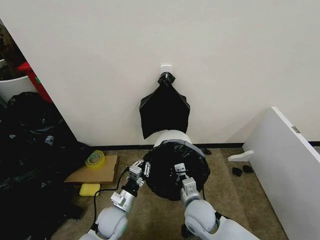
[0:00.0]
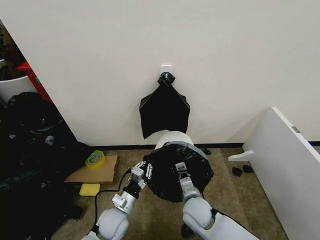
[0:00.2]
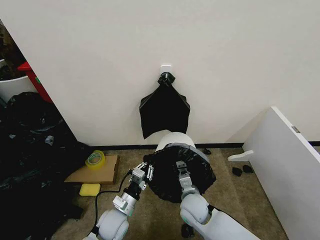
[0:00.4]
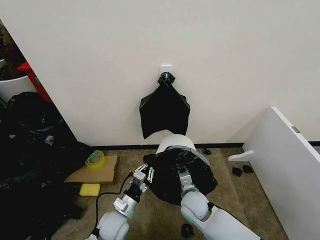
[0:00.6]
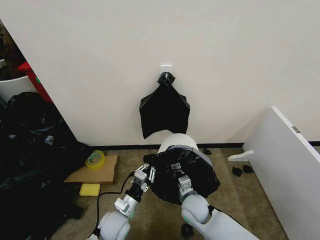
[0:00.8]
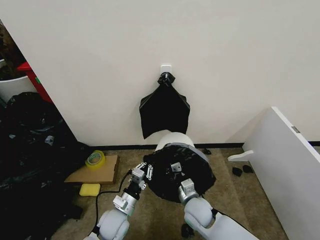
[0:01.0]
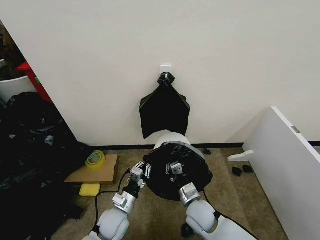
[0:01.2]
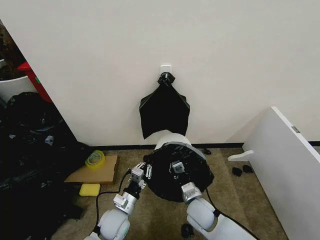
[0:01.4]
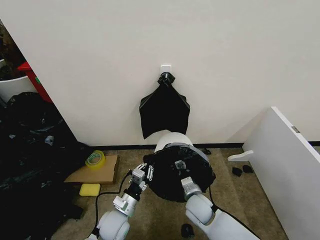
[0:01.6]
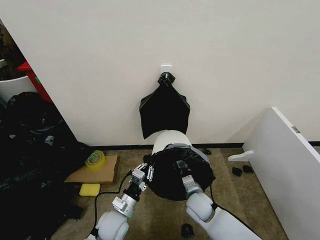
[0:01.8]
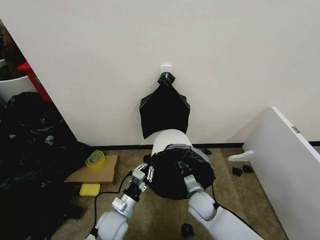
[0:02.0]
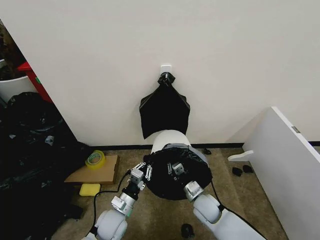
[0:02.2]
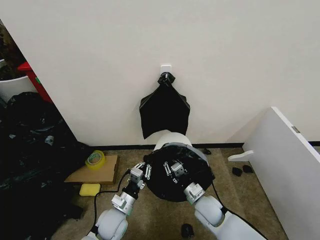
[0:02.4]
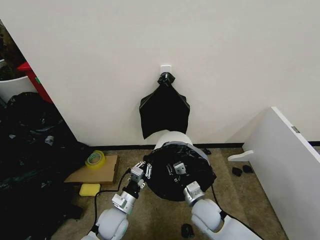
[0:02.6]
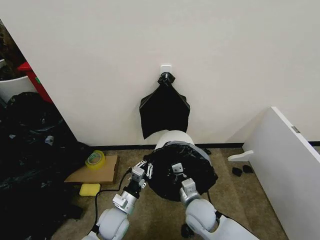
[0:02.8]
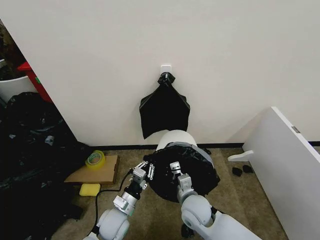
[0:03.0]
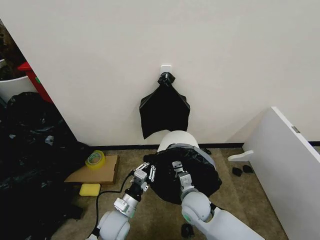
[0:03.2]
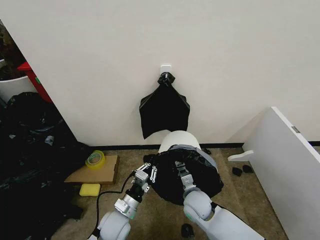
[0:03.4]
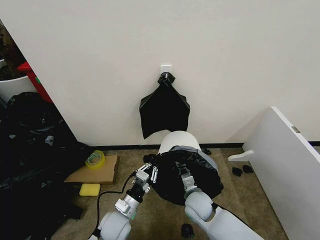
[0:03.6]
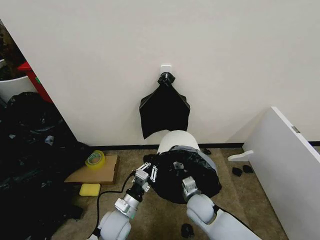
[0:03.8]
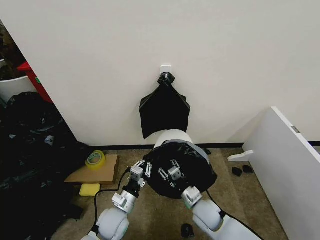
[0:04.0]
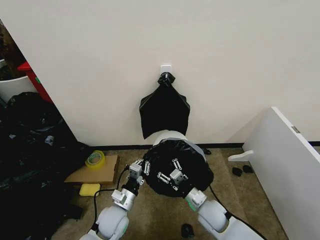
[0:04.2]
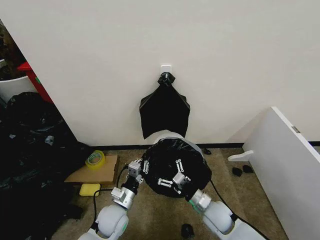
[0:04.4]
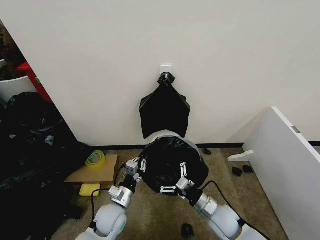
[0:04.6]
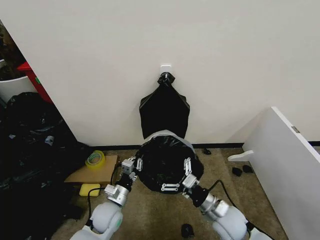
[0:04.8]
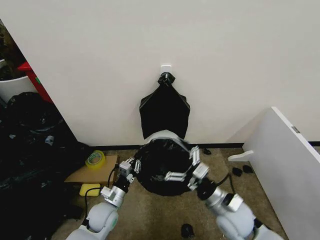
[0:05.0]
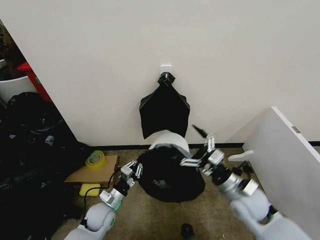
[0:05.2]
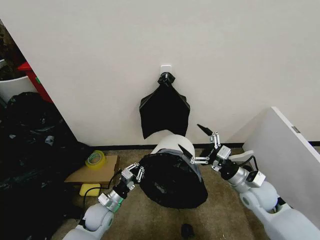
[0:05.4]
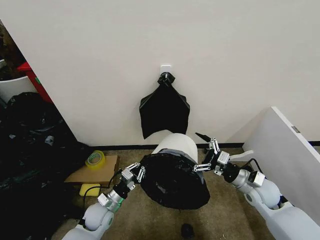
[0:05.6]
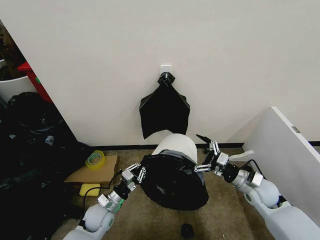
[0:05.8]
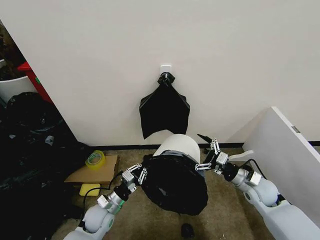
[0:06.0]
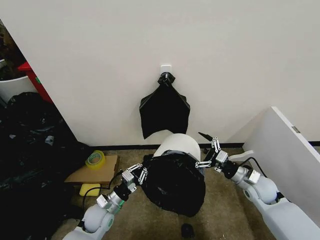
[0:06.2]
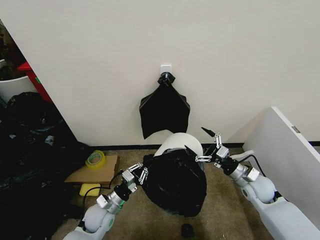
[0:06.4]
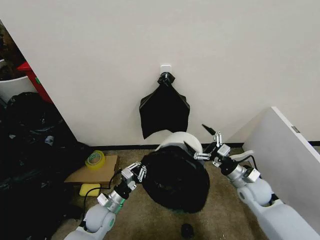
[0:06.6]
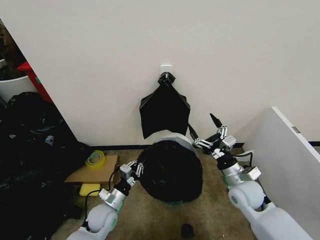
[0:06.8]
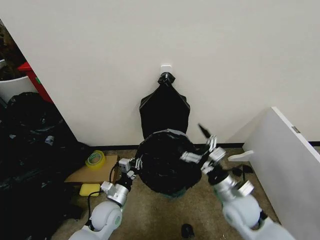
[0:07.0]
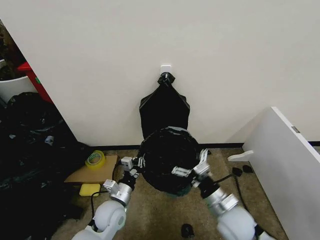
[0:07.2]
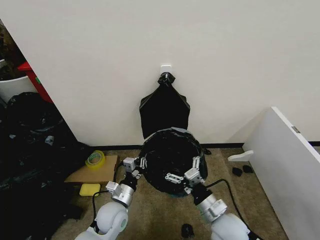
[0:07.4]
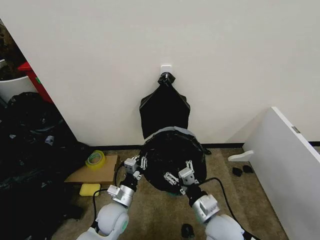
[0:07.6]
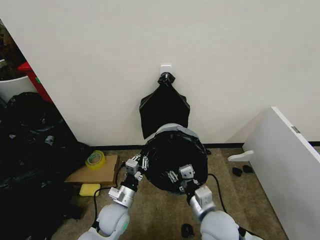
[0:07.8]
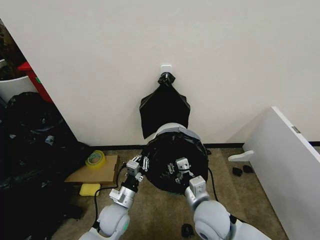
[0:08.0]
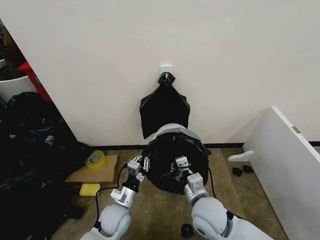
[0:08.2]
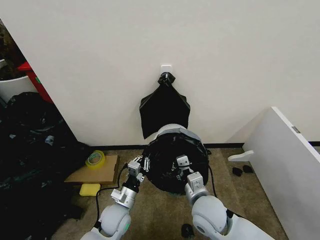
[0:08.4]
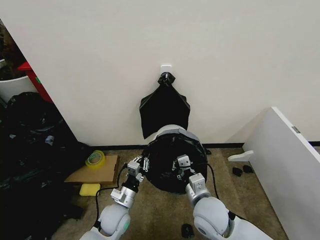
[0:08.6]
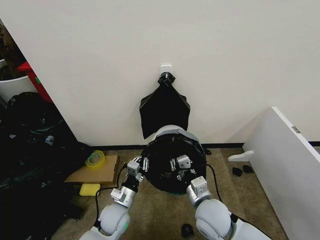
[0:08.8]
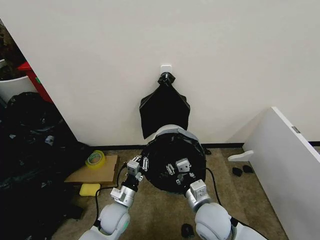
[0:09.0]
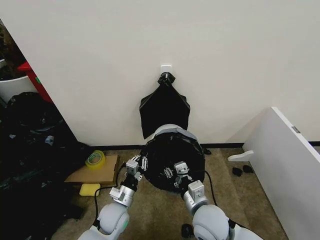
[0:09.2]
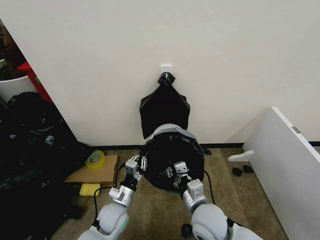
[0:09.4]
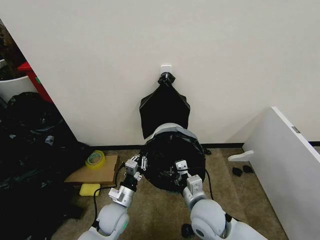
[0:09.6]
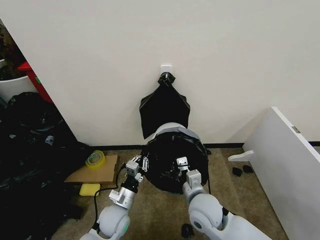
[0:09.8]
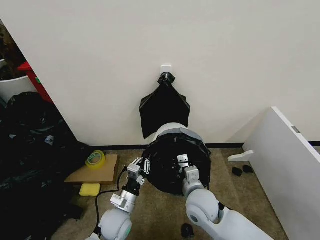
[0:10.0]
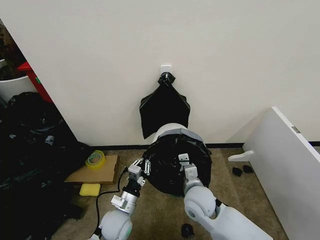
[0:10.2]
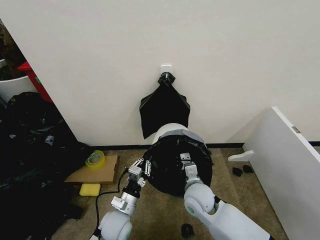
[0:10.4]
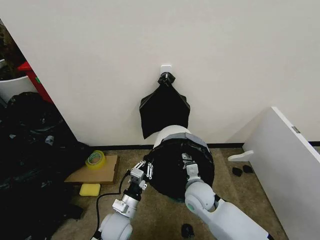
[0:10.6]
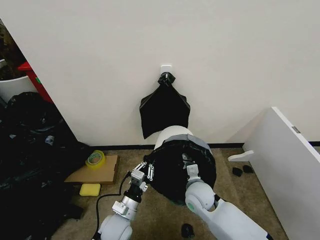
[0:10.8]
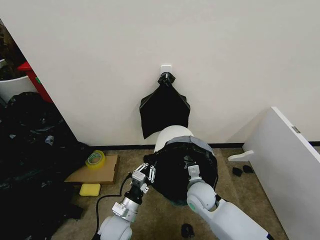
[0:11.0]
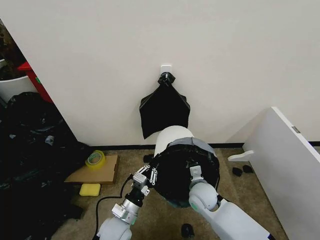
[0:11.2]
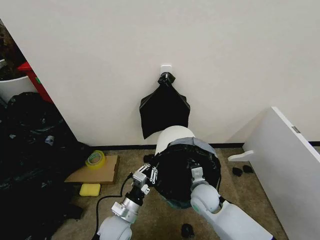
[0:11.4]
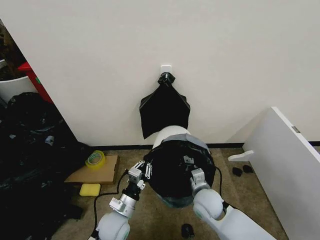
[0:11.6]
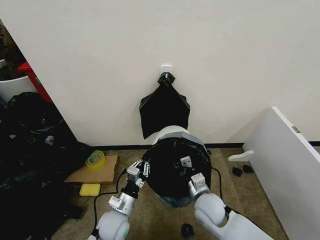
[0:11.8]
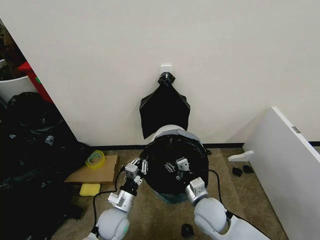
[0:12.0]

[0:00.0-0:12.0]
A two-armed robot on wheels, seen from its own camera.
Task of the whole recording: Place the garbage bag over the trash bin.
0:00.0 to 0:01.6: The right gripper moves roughly 5 cm.
0:01.6 to 0:03.0: The right gripper shifts about 5 cm upward.
0:03.0 to 0:04.4: The right gripper is displaced to the right by approximately 10 cm, and opens its fingers.
0:04.4 to 0:06.0: The left gripper shifts approximately 5 cm to the left, while the right gripper heads to the right and upward, covering roughly 15 cm.
0:06.0 to 0:07.6: The left gripper shifts about 5 cm to the right. Meanwhile the right gripper heads to the left and backward, covering approximately 20 cm.
0:07.6 to 0:09.0: The right gripper closes, then reopens.
0:09.0 to 0:10.4: The right gripper is displaced forward by roughly 5 cm, and closes up.
0:10.4 to 0:12.0: The right gripper shifts by approximately 5 cm, and opens up.

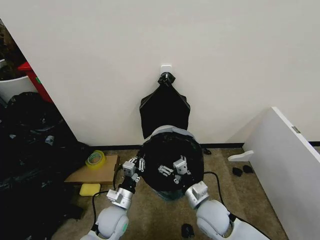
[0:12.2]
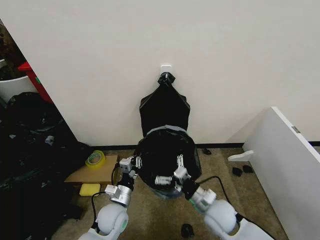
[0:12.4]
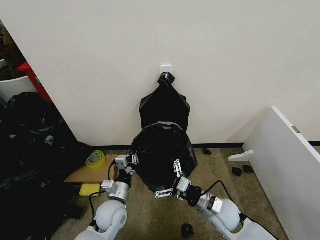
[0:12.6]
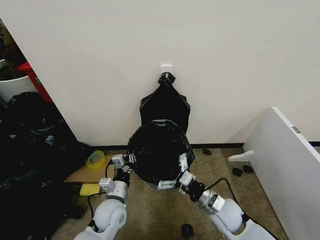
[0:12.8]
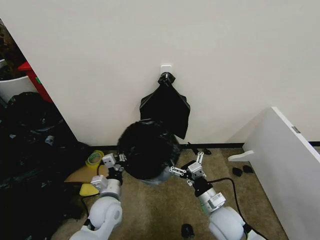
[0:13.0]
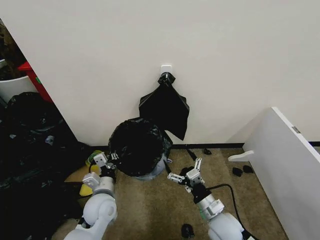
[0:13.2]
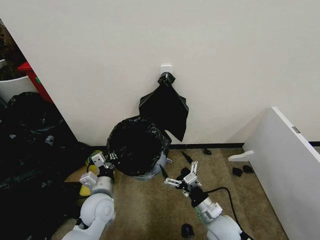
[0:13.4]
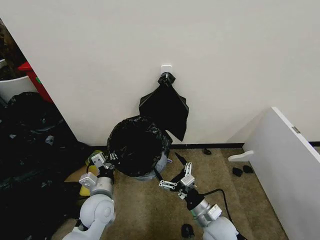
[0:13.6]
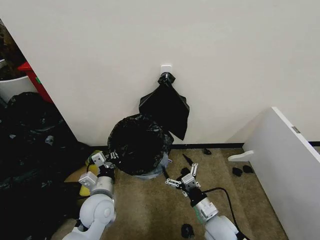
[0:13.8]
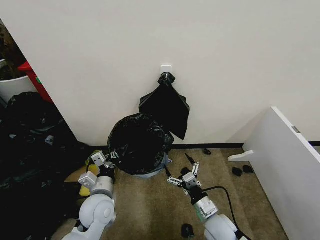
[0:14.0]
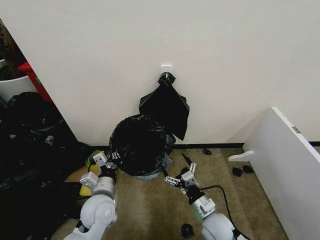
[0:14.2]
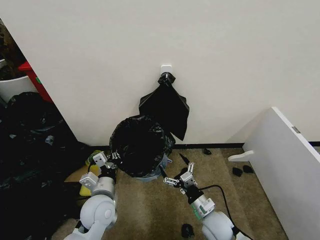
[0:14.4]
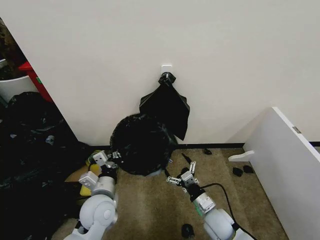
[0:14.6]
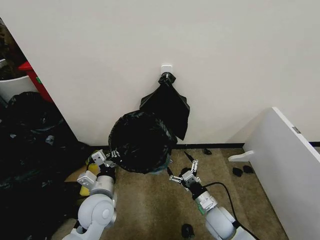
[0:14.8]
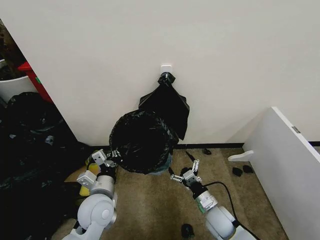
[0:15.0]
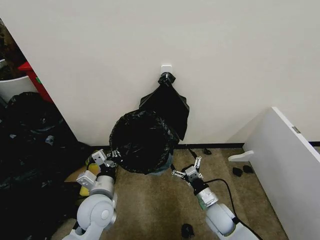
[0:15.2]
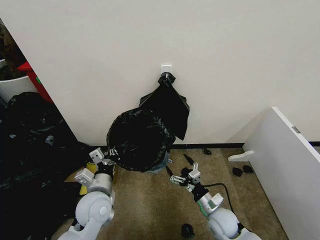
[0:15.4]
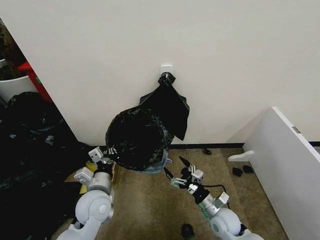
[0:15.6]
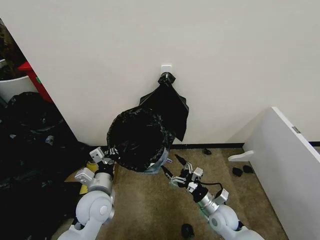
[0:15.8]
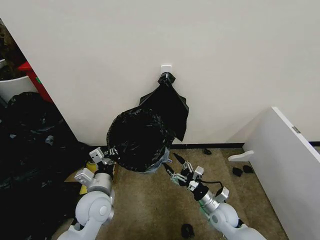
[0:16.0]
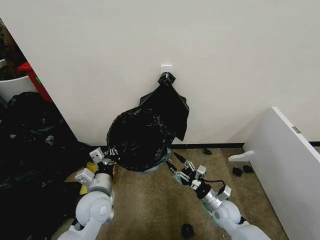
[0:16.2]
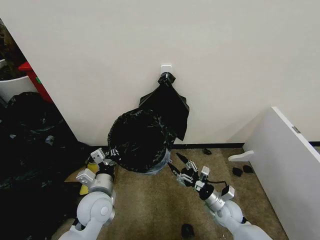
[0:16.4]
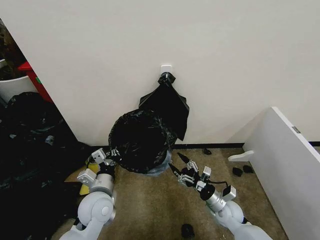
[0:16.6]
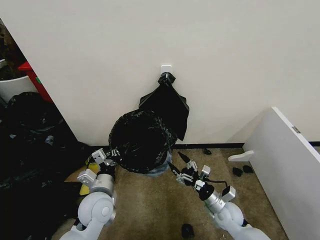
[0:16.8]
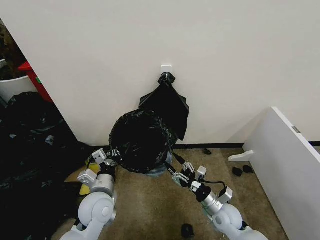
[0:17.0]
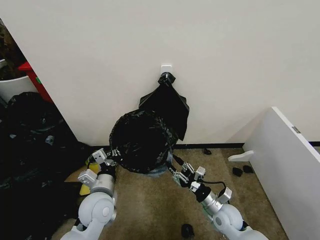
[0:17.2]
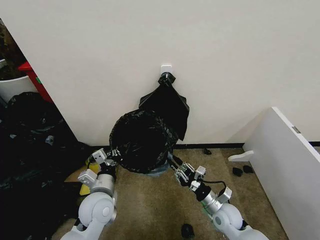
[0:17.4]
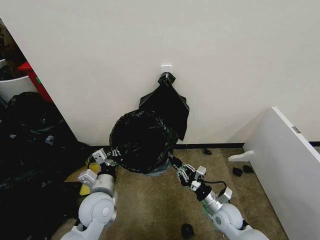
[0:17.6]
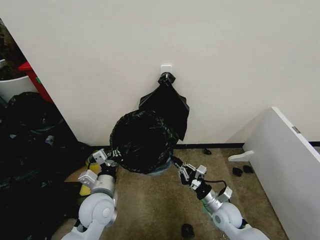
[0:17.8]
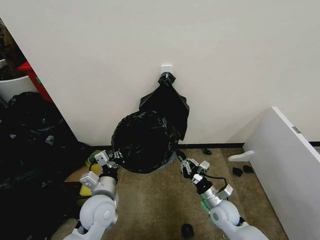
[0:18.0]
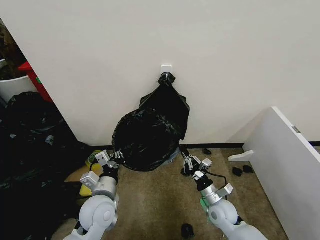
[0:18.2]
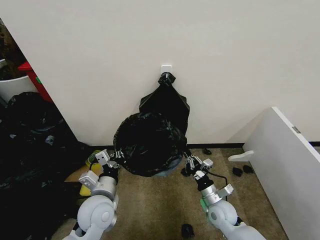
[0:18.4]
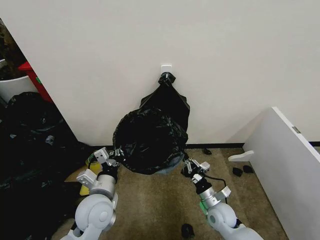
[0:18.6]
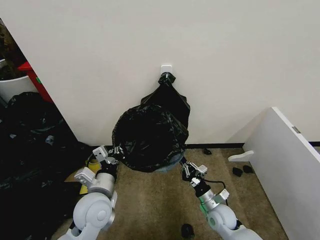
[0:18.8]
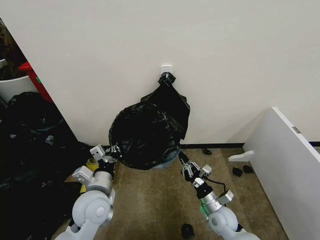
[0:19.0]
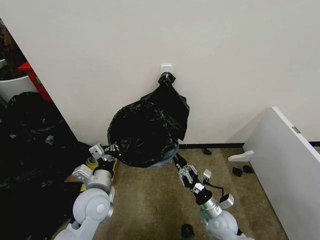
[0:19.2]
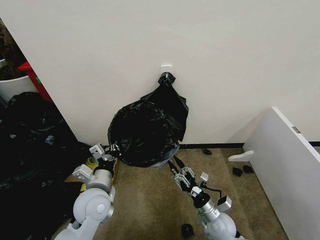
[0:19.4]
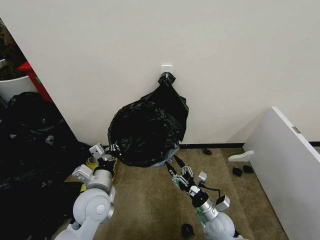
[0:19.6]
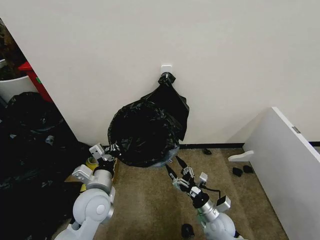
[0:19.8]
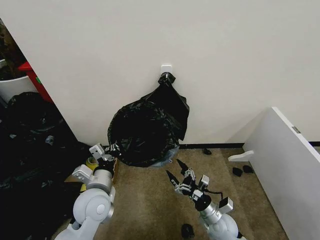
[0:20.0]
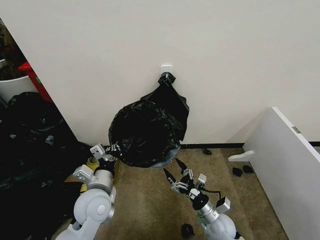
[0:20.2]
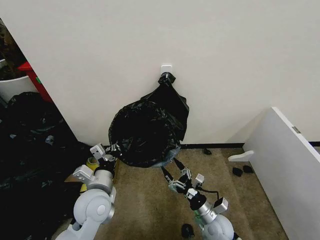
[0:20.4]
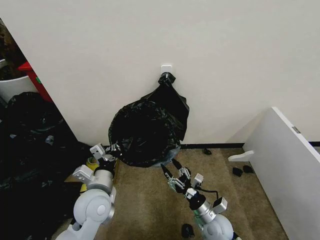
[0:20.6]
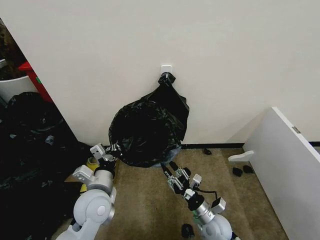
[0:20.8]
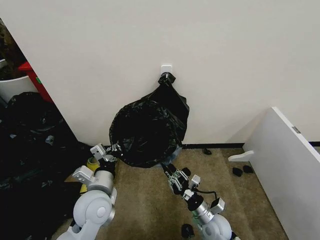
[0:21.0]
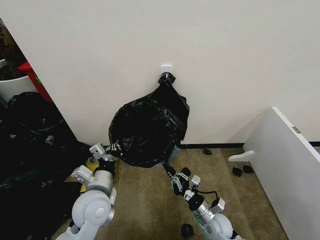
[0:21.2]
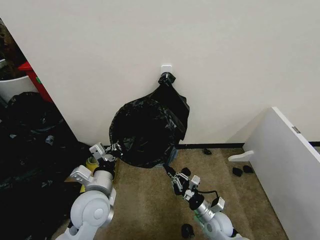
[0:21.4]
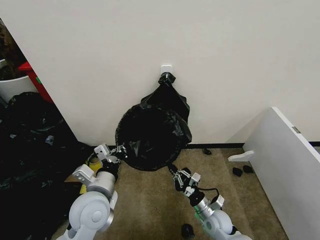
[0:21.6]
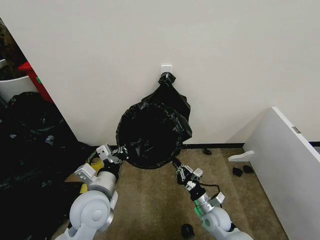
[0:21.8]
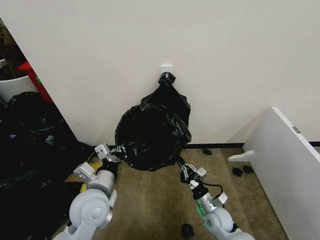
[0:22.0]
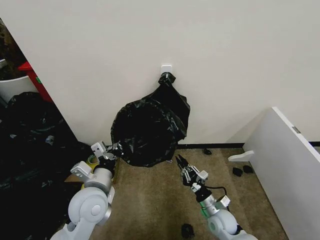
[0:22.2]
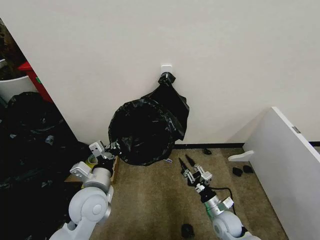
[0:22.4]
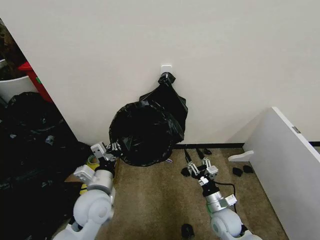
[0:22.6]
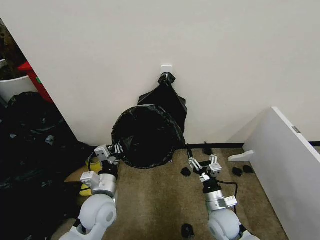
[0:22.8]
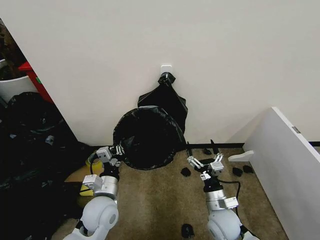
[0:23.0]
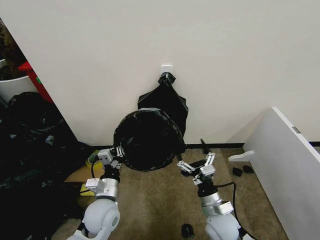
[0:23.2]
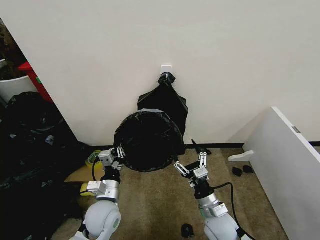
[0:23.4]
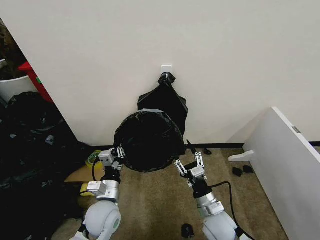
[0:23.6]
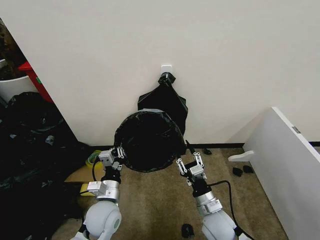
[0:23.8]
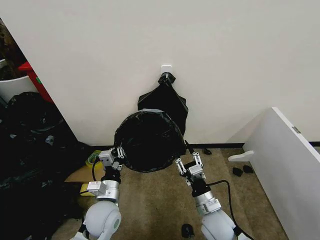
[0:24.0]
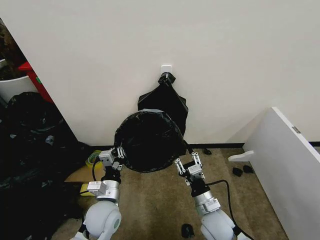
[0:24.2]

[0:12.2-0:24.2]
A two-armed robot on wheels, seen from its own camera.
Task of the whole recording: Place the garbage bag over the trash bin.
0:12.2 to 0:13.8: The right gripper ends up about 5 cm from where it was; the left gripper heads upward, covering about 10 cm.
0:13.8 to 0:15.2: The right gripper heads forward, covering about 5 cm.
0:15.2 to 0:16.6: The right gripper changes place by roughly 5 cm.
0:16.6 to 0:18.2: The right gripper closes its fingers.
0:18.2 to 0:19.8: The right gripper opens up.
0:19.8 to 0:21.2: The right gripper closes.
0:21.2 to 0:22.6: The right gripper opens its fingers.
0:22.6 to 0:24.2: The left gripper moves downward, roughly 5 cm; the right gripper travels upward and to the left by some 10 cm, and opens and closes again.
